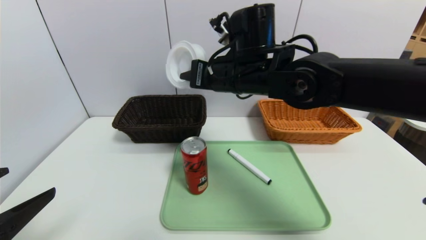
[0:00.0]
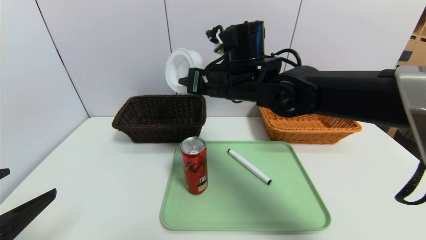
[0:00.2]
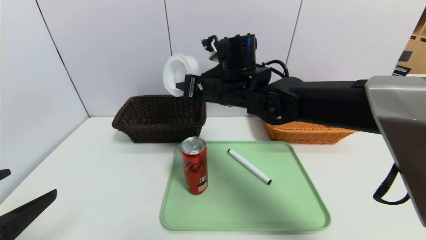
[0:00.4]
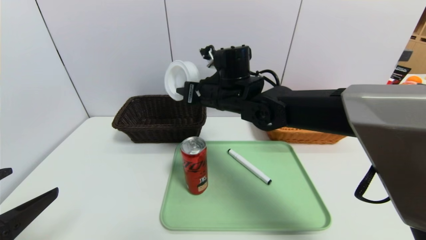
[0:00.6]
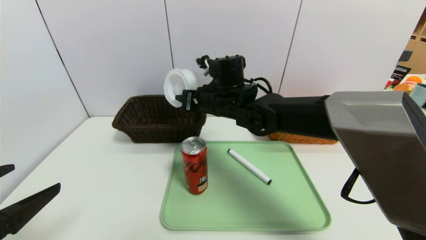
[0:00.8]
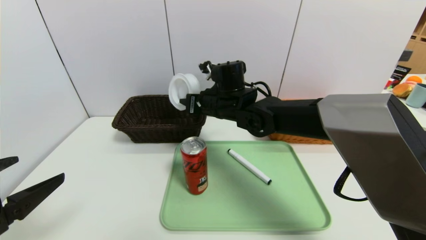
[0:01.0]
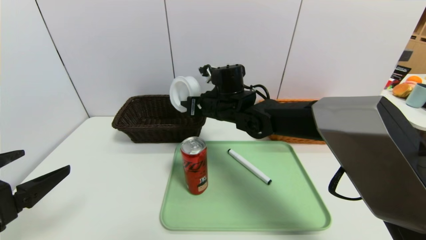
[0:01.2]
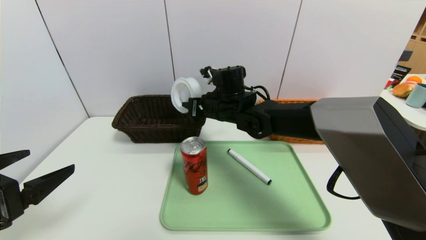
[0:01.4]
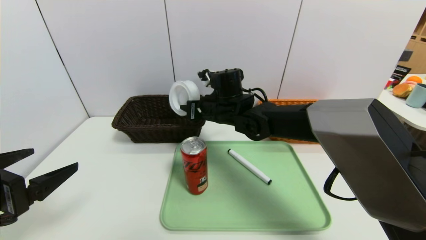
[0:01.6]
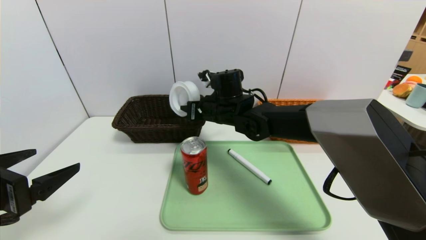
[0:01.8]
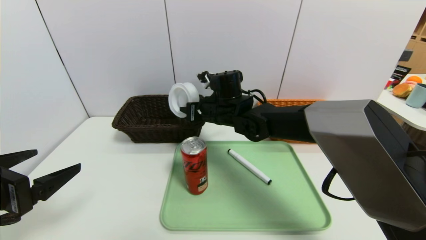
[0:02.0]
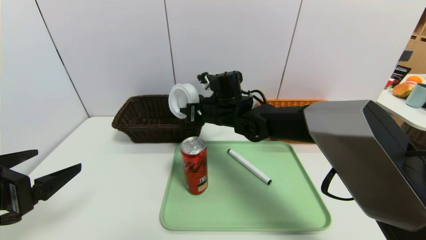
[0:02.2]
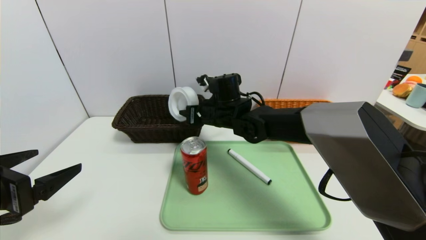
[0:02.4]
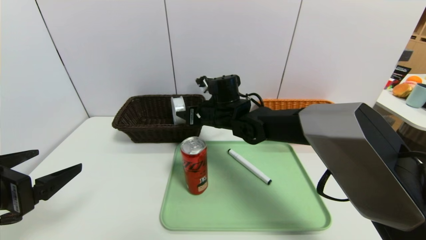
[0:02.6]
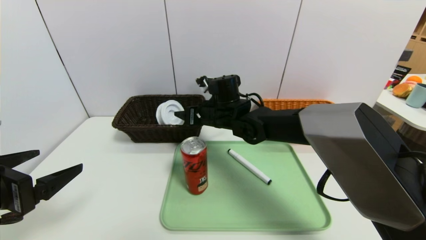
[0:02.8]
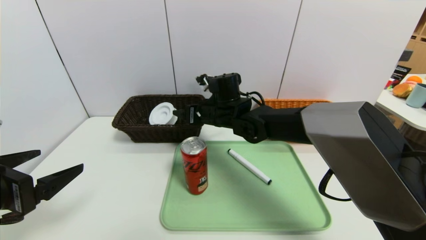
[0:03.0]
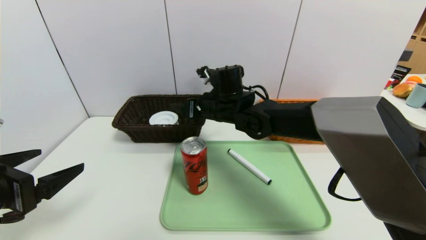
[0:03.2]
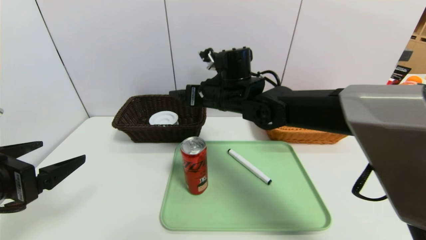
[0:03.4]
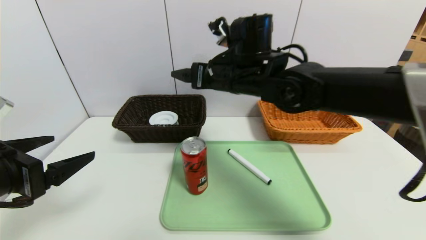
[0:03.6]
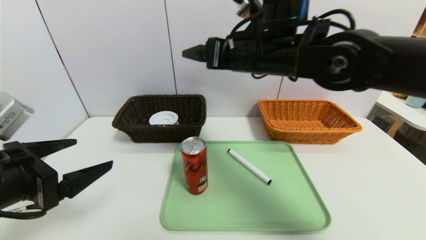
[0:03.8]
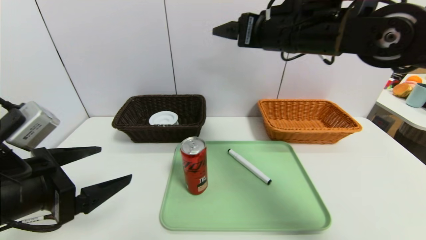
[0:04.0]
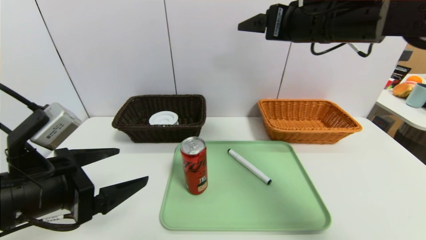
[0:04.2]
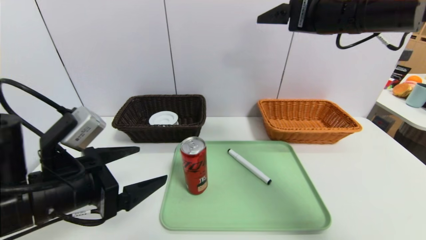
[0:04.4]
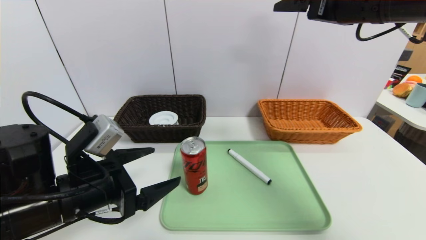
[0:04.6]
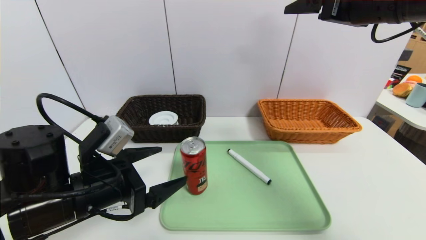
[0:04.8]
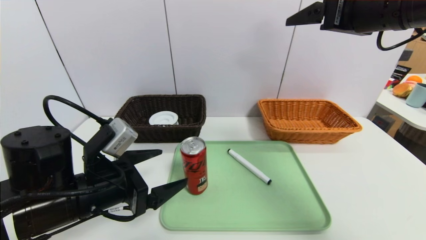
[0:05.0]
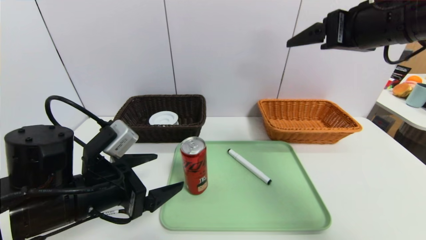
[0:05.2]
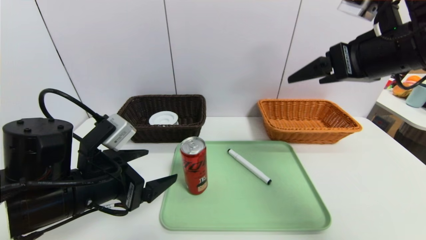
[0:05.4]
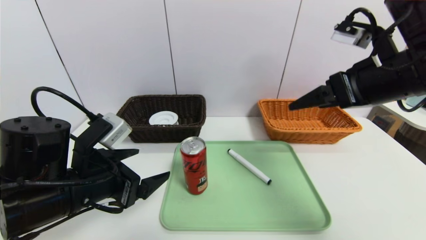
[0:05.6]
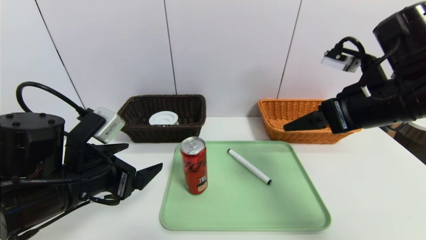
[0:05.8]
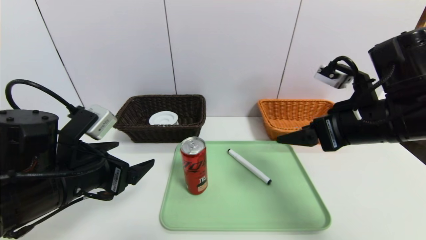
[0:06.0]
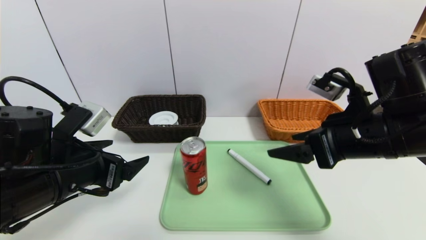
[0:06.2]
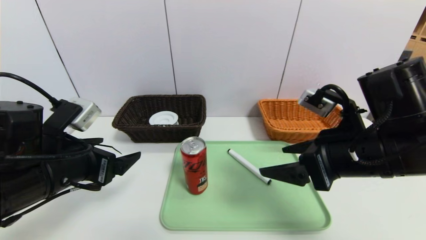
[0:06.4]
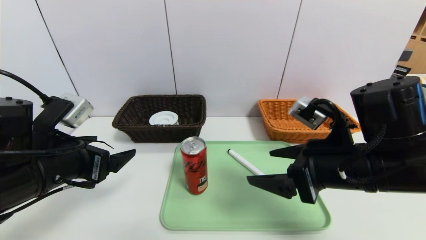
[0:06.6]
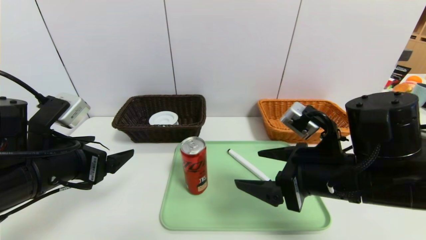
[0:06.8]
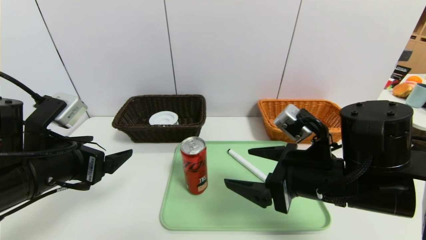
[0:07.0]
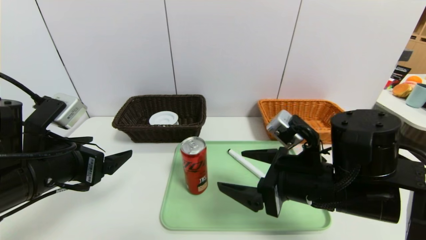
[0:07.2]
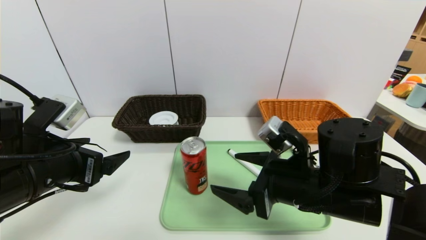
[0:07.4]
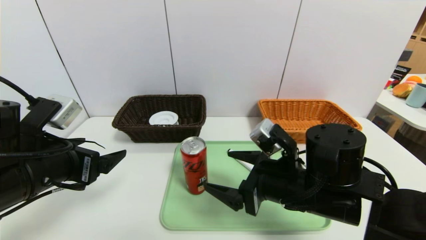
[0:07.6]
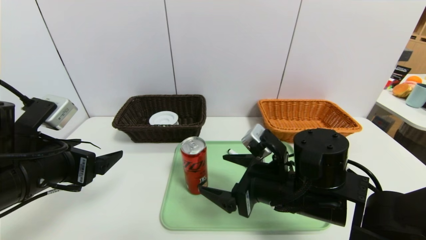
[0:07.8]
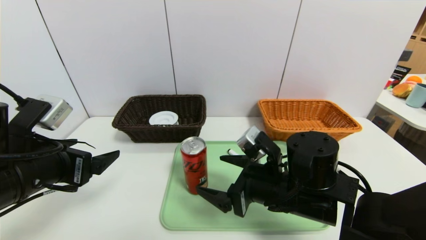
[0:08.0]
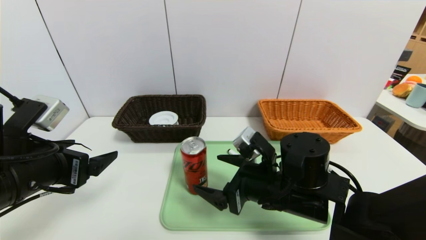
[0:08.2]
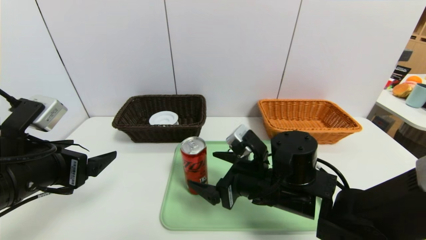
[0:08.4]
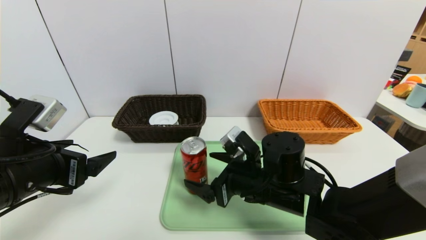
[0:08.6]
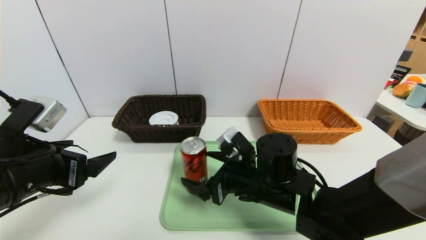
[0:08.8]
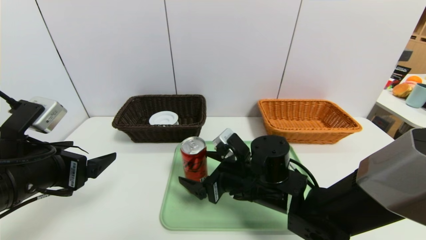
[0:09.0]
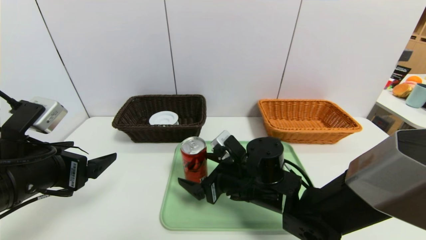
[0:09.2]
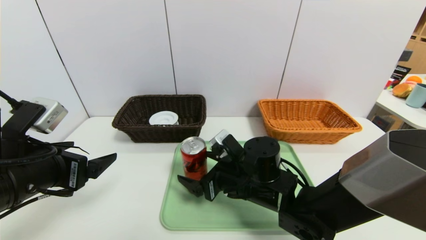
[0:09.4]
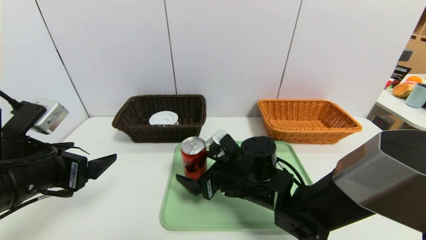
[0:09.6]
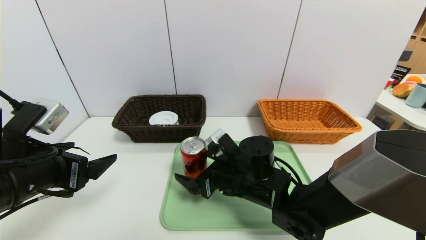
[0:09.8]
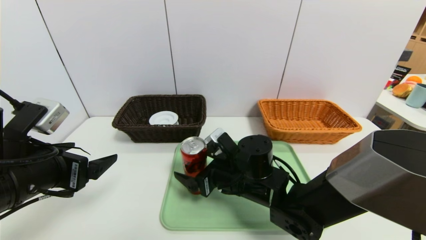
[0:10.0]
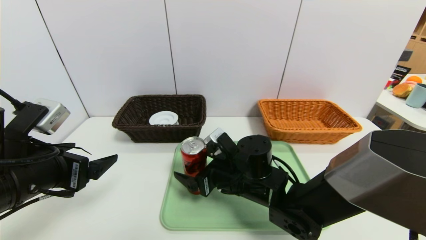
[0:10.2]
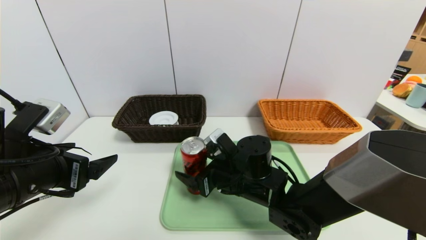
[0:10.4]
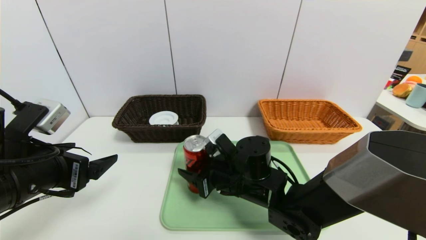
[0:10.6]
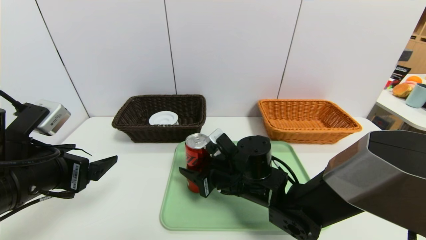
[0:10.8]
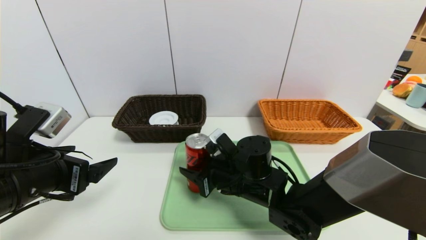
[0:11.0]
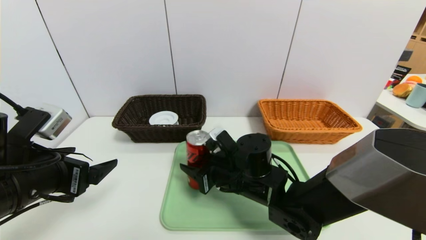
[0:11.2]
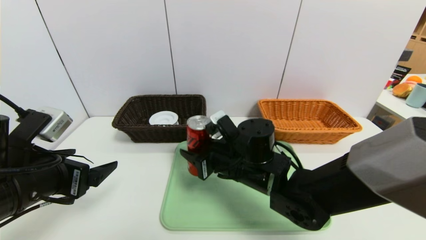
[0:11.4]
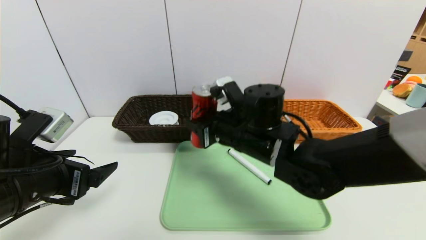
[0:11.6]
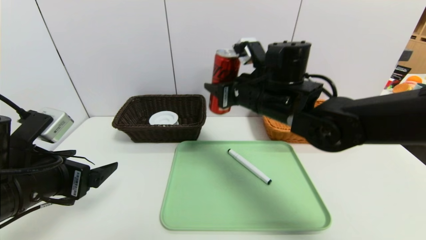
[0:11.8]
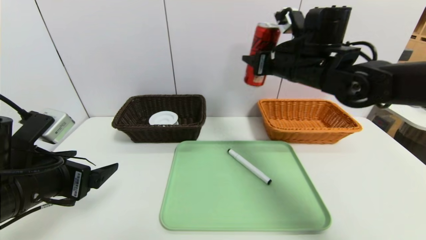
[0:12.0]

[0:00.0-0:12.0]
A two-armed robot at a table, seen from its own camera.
Task of the whole recording: place the food in the right basket with the right gripper, and place the non food items in the left basket with the left gripper.
Step, 0:00.0 to 0:03.0: Grasp the tape and put it in the left basket.
0:00.0 to 0:01.6: The right gripper goes roughly 10 cm downward and forward.
0:01.6 to 0:03.0: The right gripper opens up.
0:03.0 to 0:04.4: The left gripper travels to the right by roughly 10 cm. The right gripper is displaced upward, to the right and backward by some 30 cm.
0:04.4 to 0:06.0: The right gripper goes some 15 cm downward and backward.
0:06.0 to 0:07.6: The right gripper travels downward and to the left by roughly 15 cm.
0:07.6 to 0:09.0: The right gripper is displaced to the left by some 5 cm.
0:09.0 to 0:10.4: The grippers stay close to where they were, moving slightly.
0:10.4 to 0:12.0: The right gripper is displaced upward, to the right and forward by some 25 cm, and closes up.

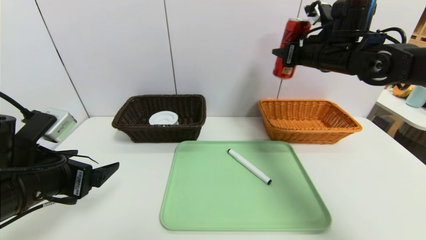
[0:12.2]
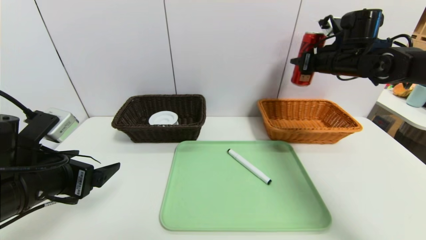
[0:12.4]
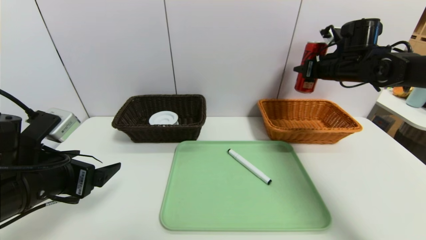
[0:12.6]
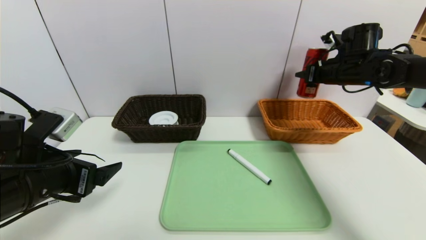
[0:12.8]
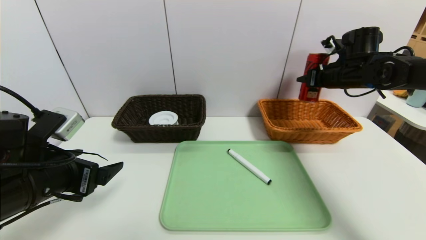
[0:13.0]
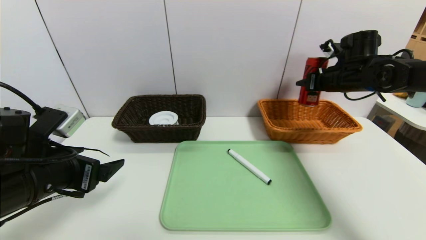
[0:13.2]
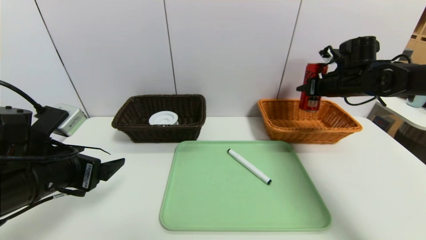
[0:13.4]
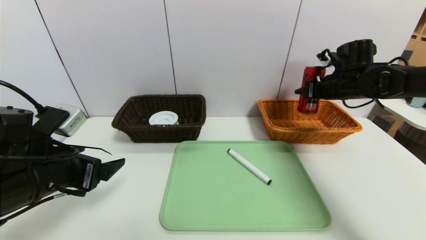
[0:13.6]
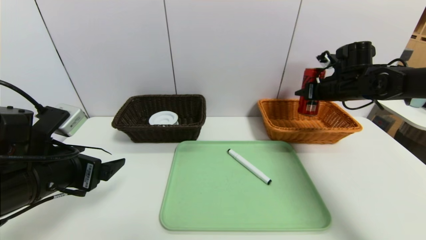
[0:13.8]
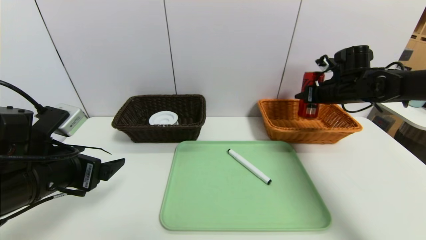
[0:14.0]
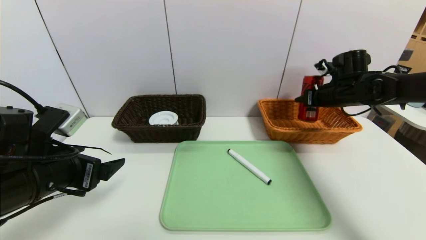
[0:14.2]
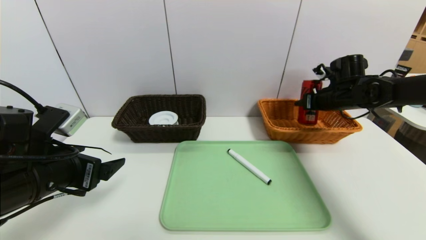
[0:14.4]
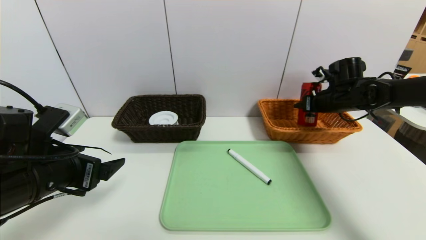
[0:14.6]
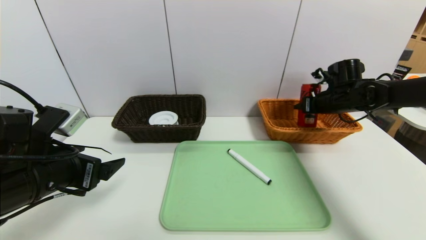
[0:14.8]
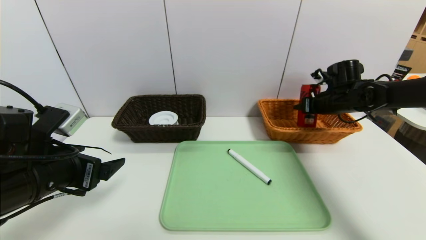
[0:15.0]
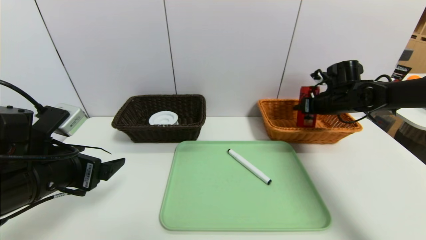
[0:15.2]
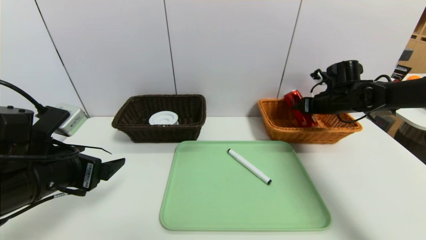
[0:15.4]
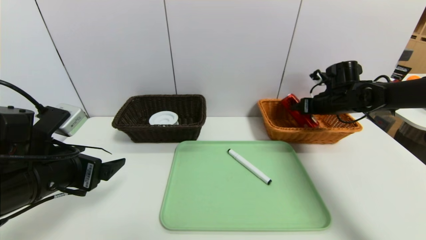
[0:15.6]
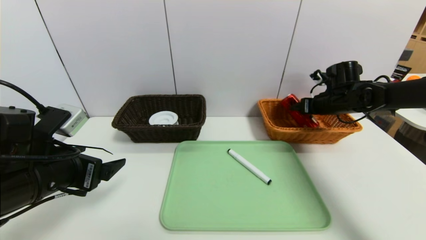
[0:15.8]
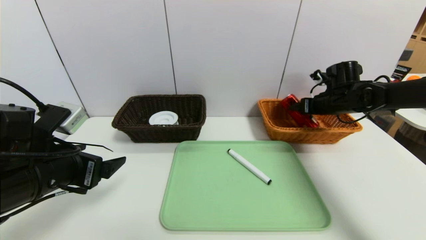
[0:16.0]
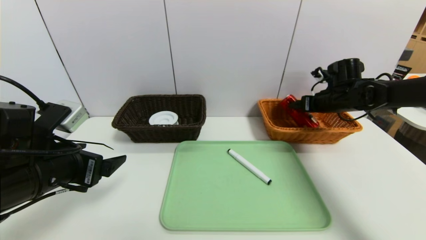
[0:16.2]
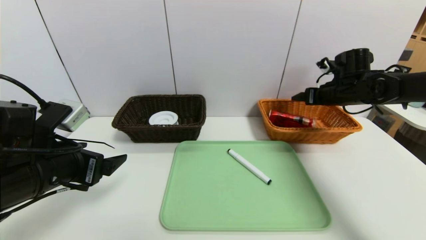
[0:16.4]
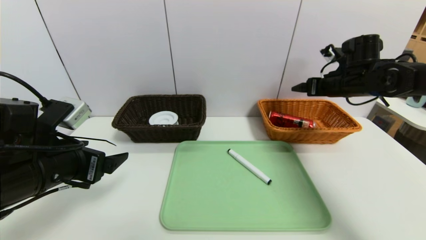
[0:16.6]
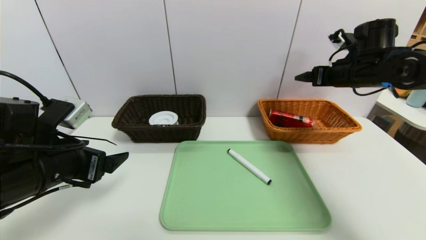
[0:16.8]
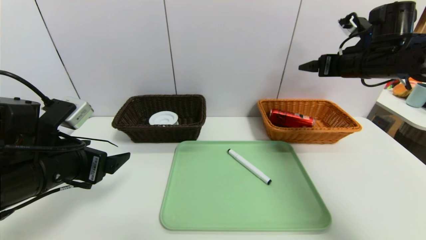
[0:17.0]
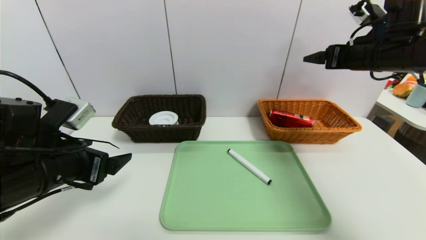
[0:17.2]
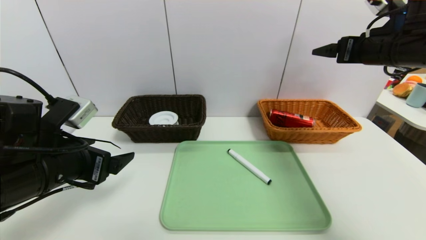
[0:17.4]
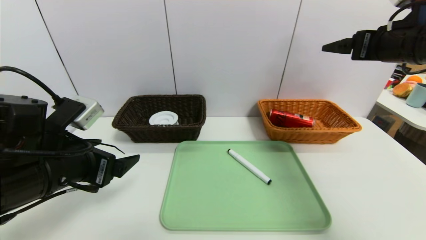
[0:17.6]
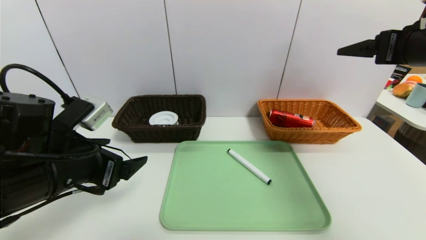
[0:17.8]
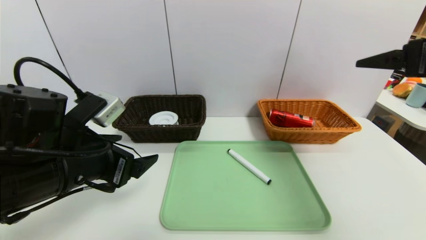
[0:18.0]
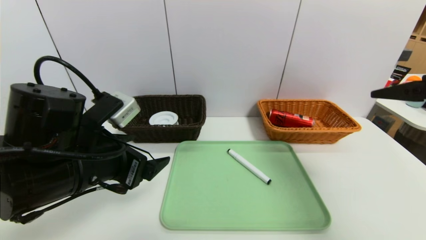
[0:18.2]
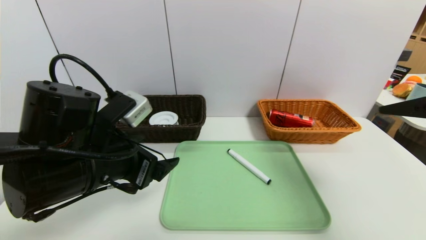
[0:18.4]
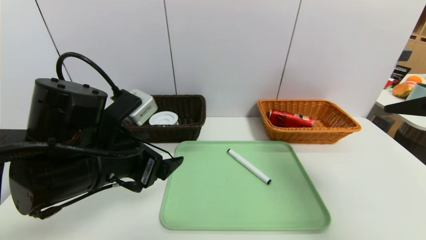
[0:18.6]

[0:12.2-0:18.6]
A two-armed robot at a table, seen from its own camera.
Task of the whole recording: place the food in the right basket with the right gripper, and place the non food items in the left basket with the left gripper.
Step, 0:12.2 to 0:15.8: Grasp the coke and put it in the right basket.
0:12.2 to 0:13.8: The right gripper moves to the right and downward, approximately 10 cm.
0:13.8 to 0:15.4: The grippers make only small movements.
0:15.4 to 0:17.0: The right gripper moves upward and backward, about 15 cm, and opens up.
0:17.0 to 0:18.6: The right gripper shifts roughly 20 cm backward. The left gripper moves to the right, approximately 10 cm.
